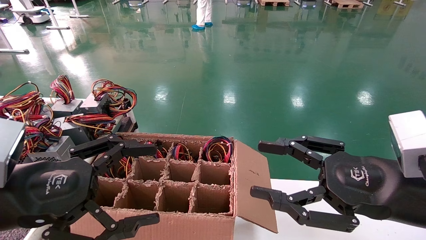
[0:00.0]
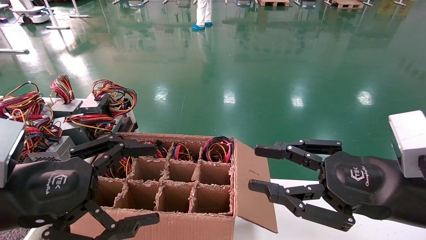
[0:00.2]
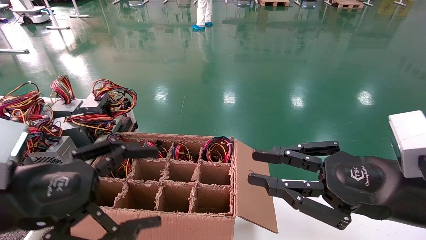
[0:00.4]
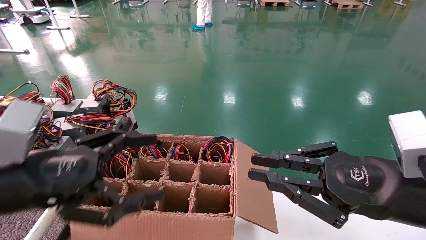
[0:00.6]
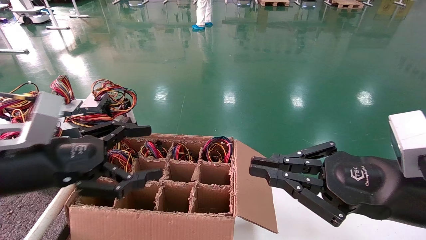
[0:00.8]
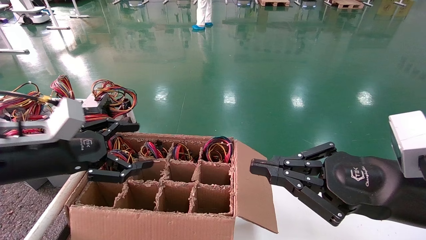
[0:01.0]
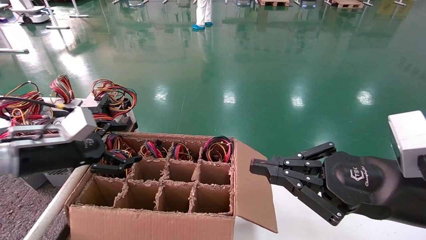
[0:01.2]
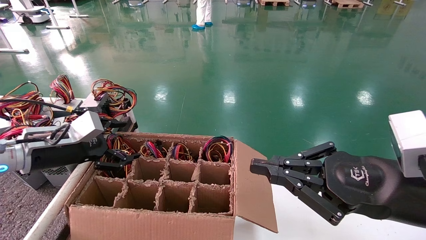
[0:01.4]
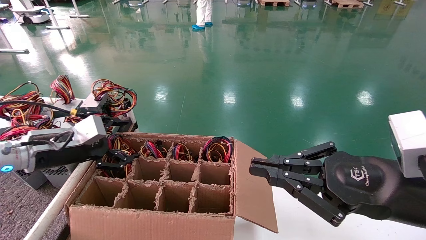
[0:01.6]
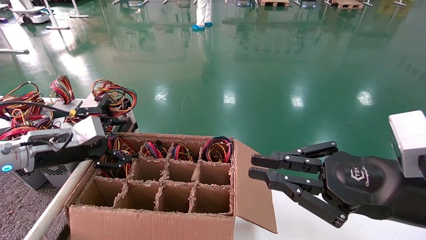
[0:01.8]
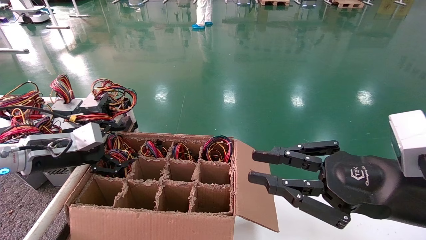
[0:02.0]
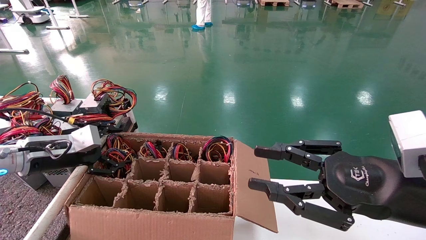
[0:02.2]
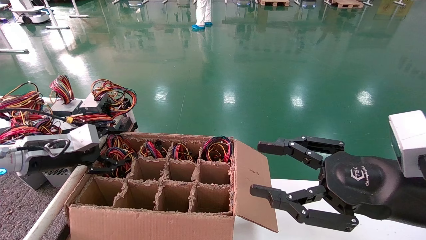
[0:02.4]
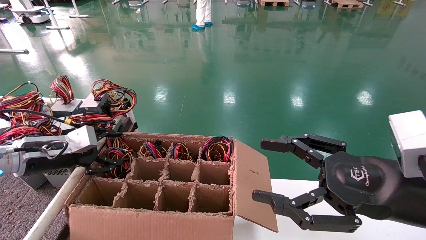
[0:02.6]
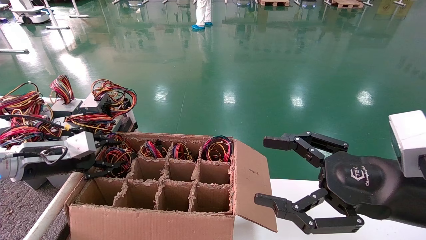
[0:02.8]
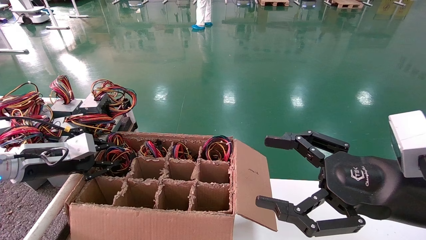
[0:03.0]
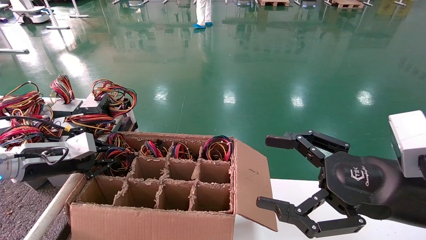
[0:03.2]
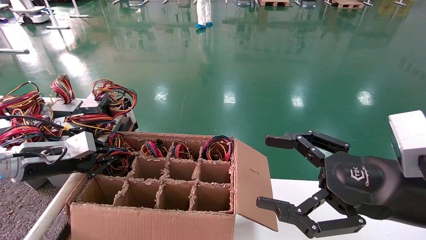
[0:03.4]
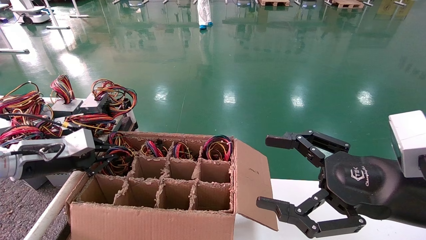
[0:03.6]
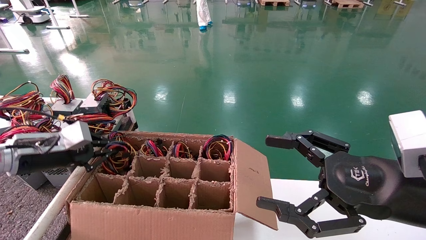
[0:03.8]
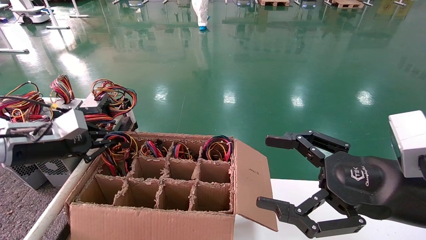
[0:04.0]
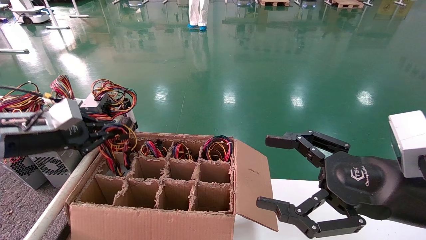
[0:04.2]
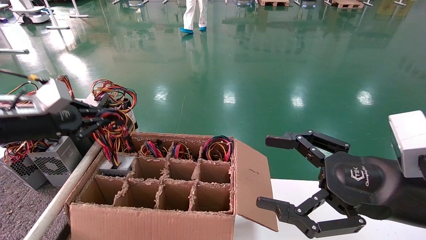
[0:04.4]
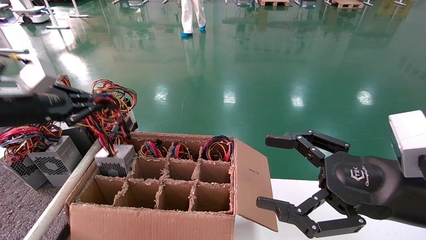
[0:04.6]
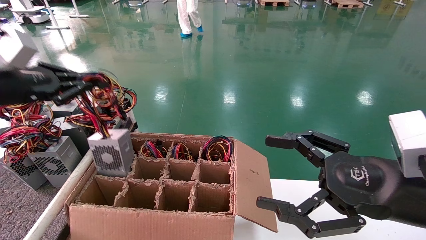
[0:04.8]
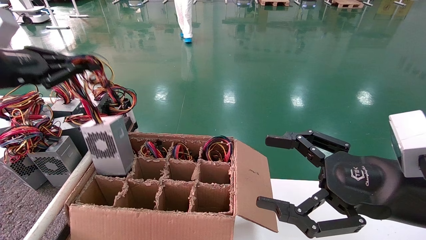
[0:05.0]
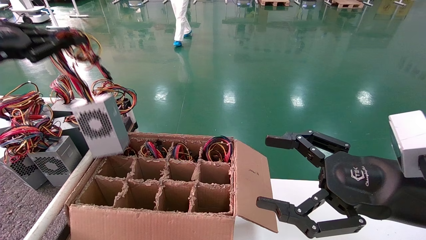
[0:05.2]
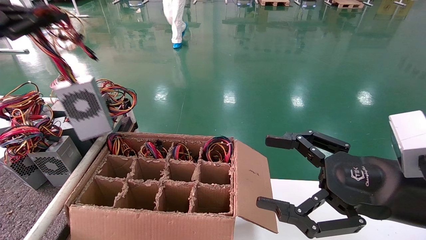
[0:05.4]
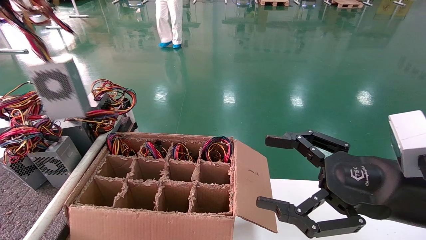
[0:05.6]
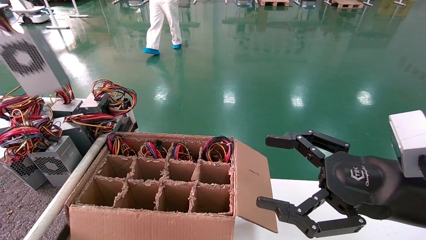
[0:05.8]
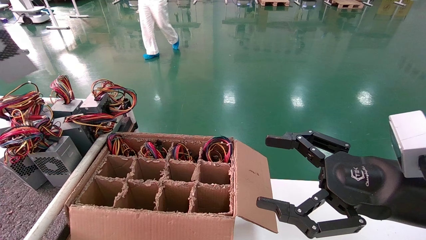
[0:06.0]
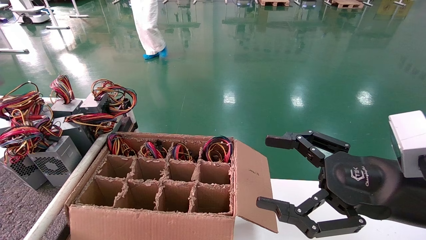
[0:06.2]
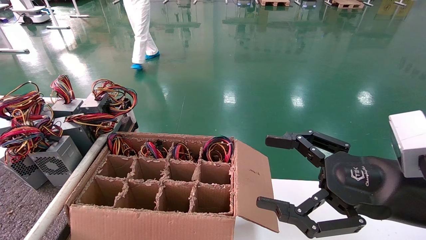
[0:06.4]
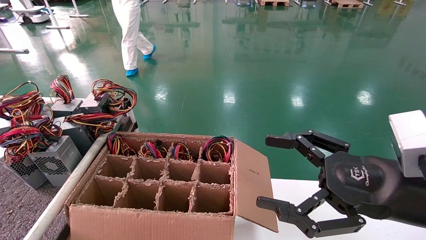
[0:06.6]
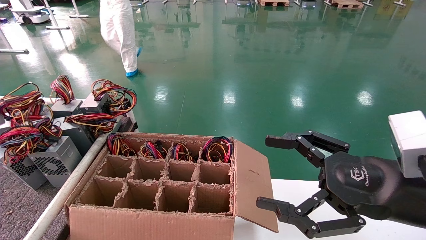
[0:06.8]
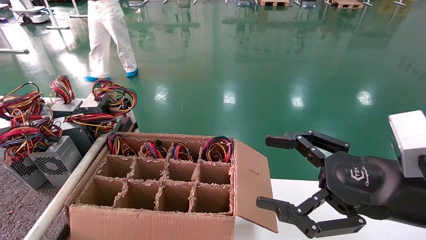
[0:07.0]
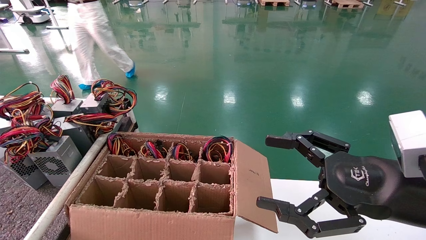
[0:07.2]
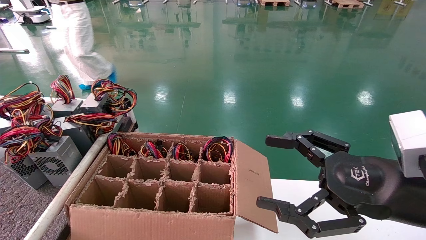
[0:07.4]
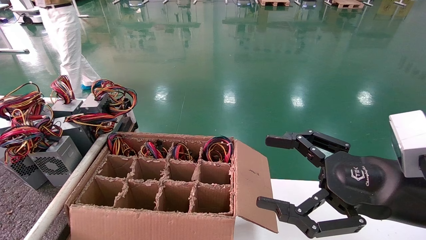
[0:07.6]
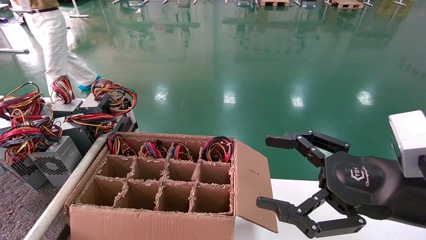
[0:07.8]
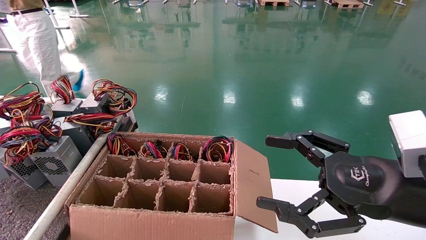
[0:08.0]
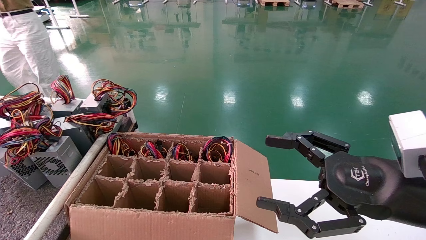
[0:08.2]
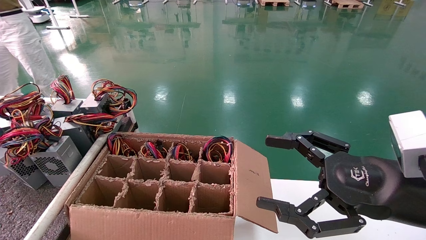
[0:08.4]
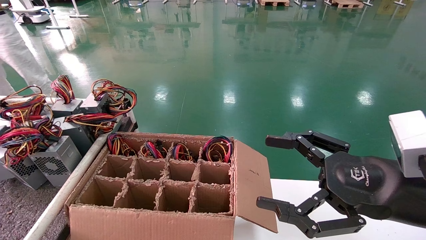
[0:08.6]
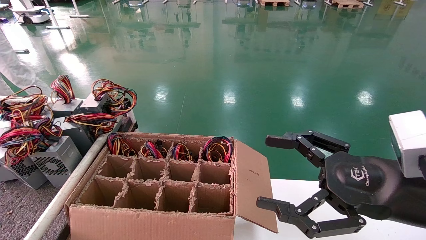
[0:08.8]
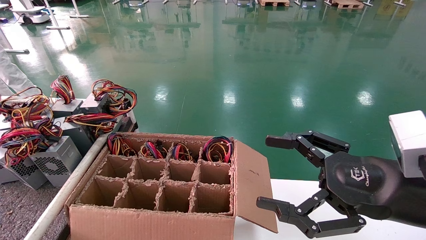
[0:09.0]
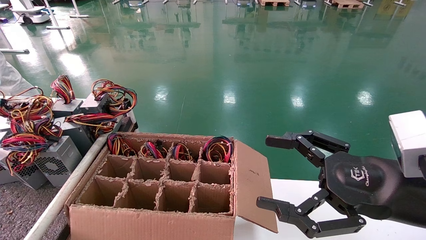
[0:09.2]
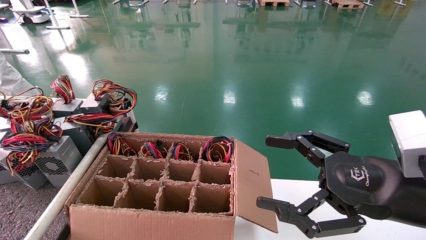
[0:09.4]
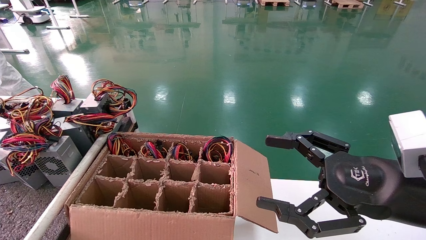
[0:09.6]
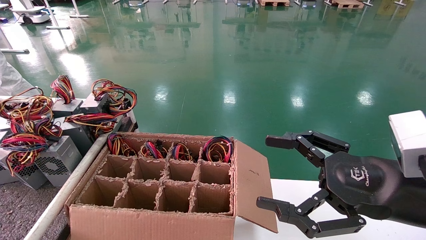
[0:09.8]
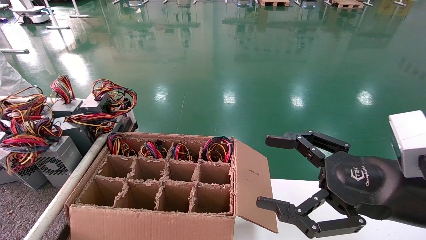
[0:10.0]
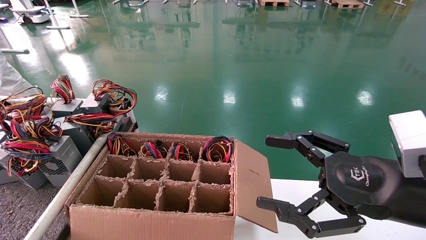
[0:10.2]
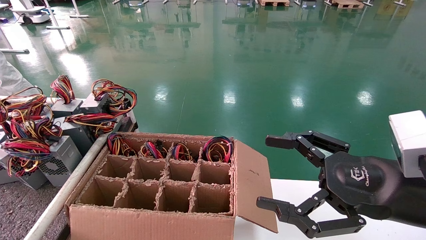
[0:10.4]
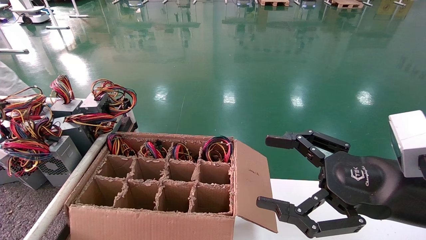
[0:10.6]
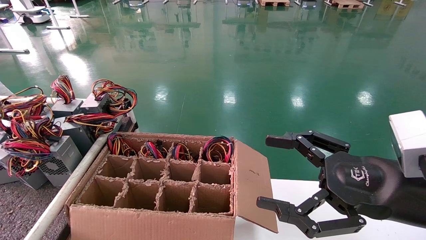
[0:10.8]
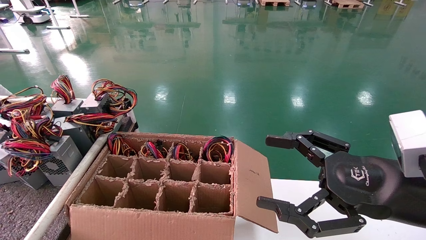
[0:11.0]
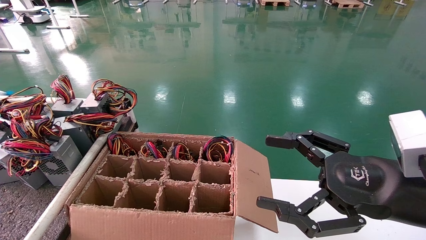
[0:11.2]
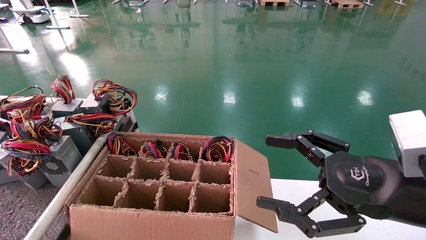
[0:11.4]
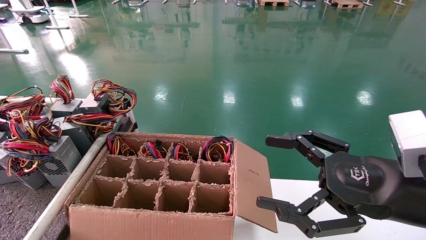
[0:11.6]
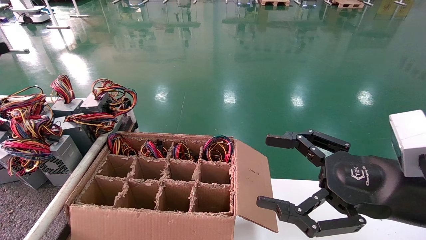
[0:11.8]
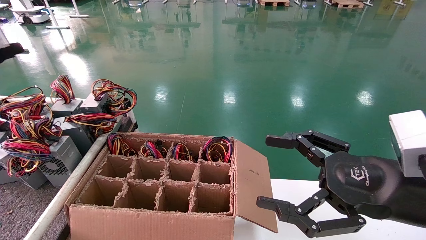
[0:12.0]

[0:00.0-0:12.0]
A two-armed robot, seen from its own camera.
Step, 0:00.8 to 0:03.6: Grab and lift the power supply from the large box.
Step, 0:03.8 to 0:10.2: Place the power supply on the operating table.
0:00.0 to 0:01.6: The right gripper closes up. Meanwhile the left gripper moves forward, about 20 cm.
0:01.6 to 0:03.0: The right gripper opens, while the left gripper moves some 5 cm, and closes.
0:03.0 to 0:04.4: The left gripper goes roughly 10 cm upward, and closes.
0:04.4 to 0:06.0: The left gripper goes roughly 25 cm upward and to the left.
0:06.0 to 0:07.6: The left gripper goes approximately 15 cm downward and to the left.
0:07.6 to 0:09.0: The left gripper moves downward and forward, roughly 10 cm.
0:09.0 to 0:10.4: The left gripper opens up.
0:10.4 to 0:12.0: The left gripper is displaced to the right and upward by roughly 10 cm, and opens.

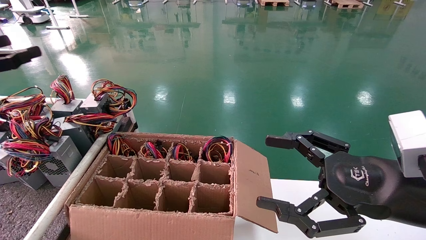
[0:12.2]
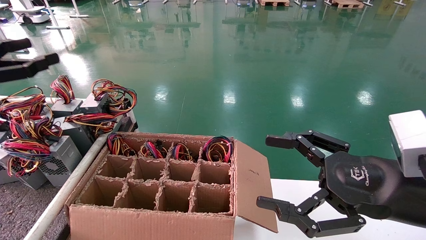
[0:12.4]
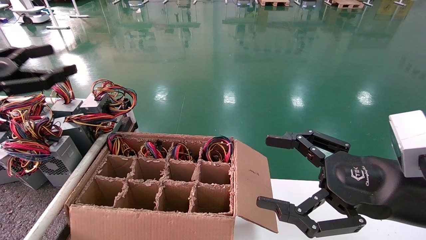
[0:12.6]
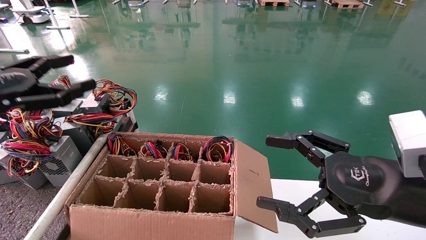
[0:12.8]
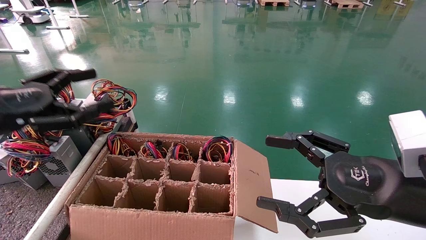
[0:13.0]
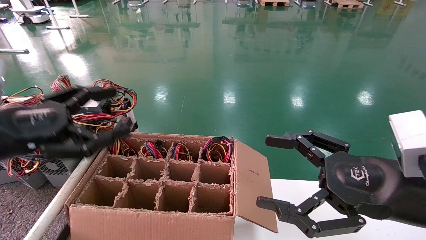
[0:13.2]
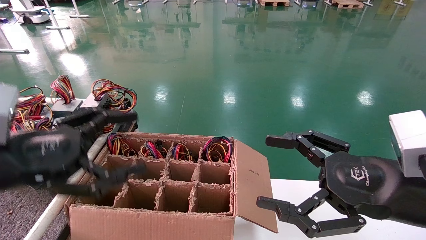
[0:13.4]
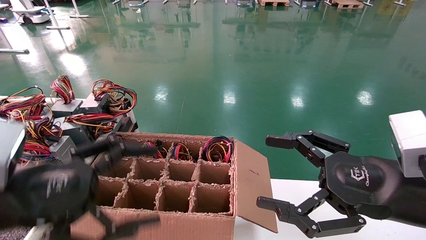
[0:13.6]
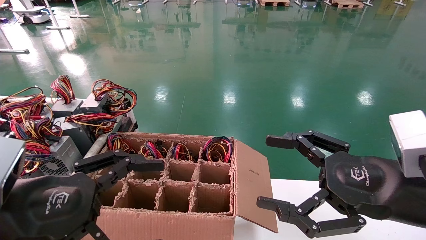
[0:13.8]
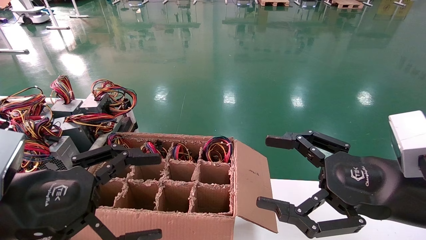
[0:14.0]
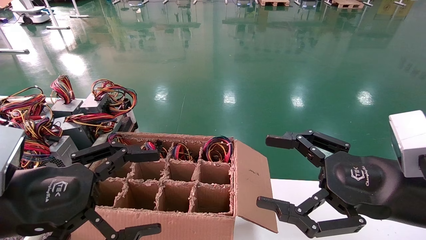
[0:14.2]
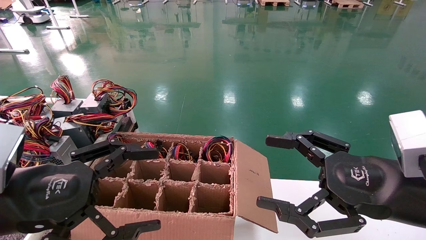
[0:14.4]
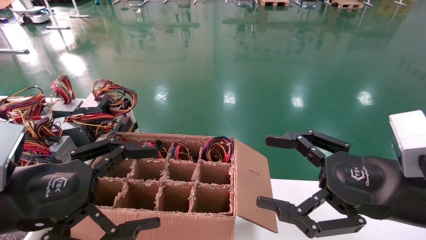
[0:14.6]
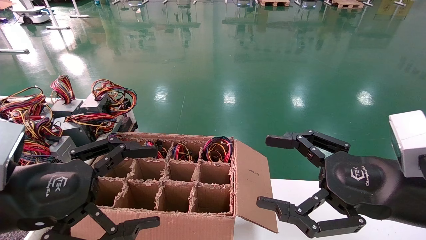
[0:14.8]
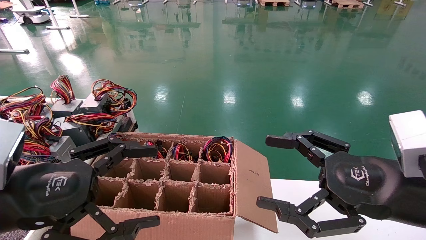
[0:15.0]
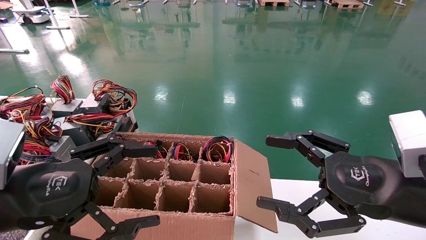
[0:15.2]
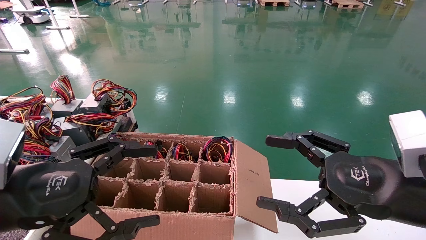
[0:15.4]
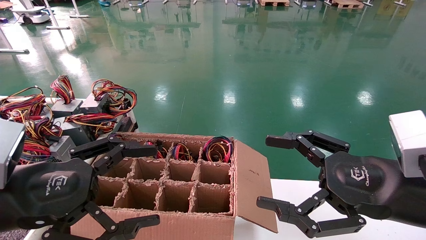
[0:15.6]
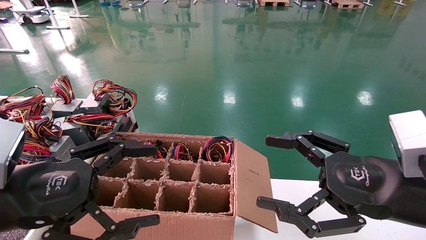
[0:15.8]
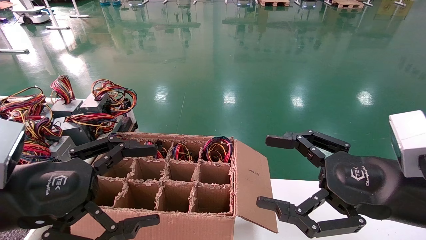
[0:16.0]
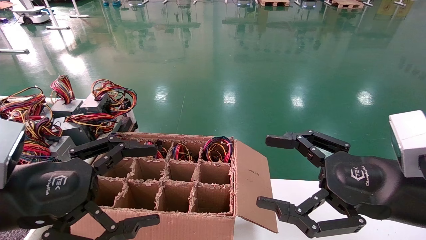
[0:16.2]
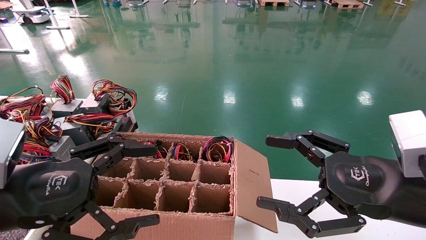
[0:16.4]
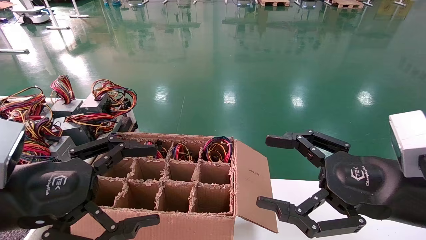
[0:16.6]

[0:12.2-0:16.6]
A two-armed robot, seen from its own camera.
0:12.2 to 0:13.6: The left gripper shifts about 25 cm to the right, downward and backward.
0:13.6 to 0:15.2: The grippers stay close to where they were, moving slightly.
0:15.2 to 0:16.6: Both grippers stay put.
